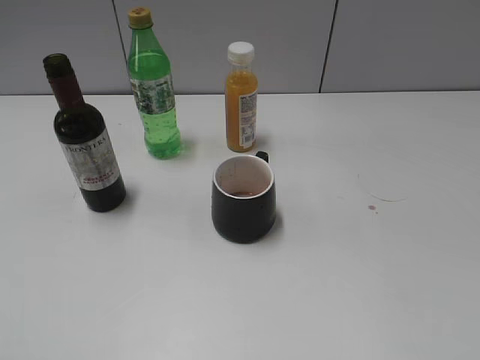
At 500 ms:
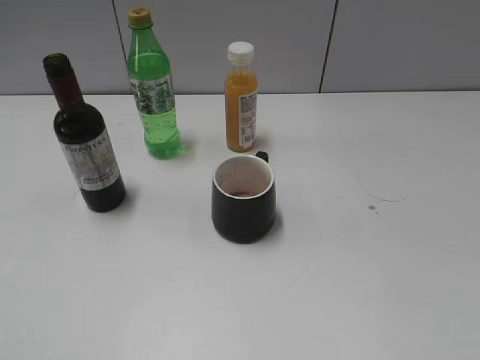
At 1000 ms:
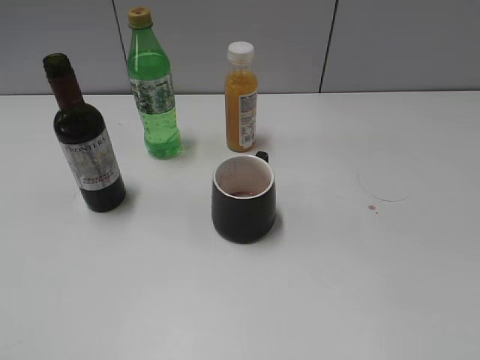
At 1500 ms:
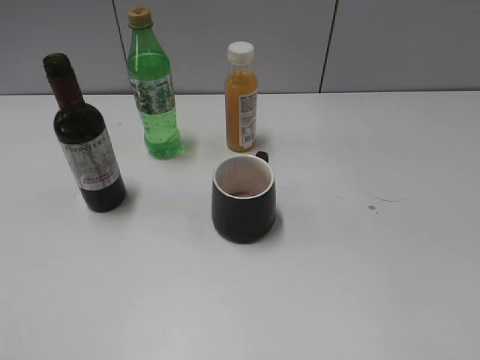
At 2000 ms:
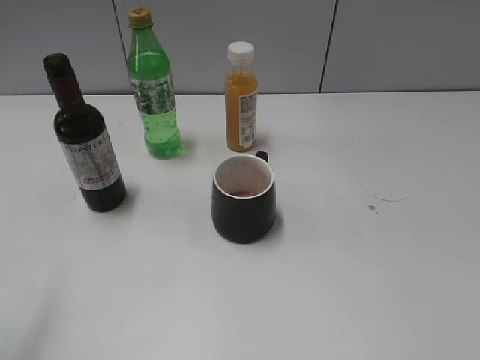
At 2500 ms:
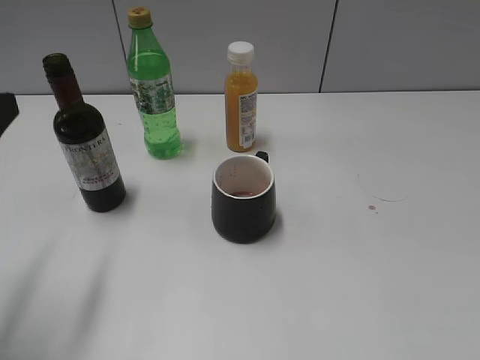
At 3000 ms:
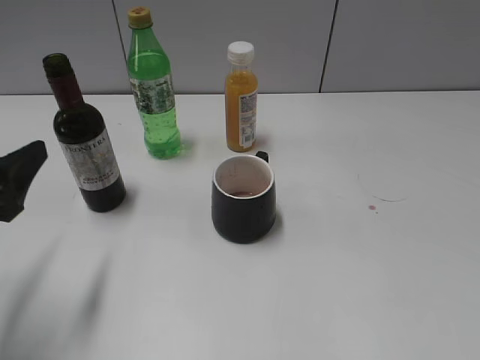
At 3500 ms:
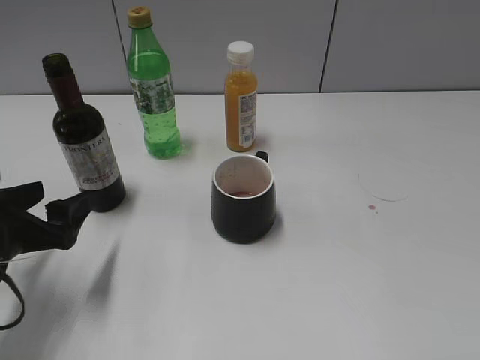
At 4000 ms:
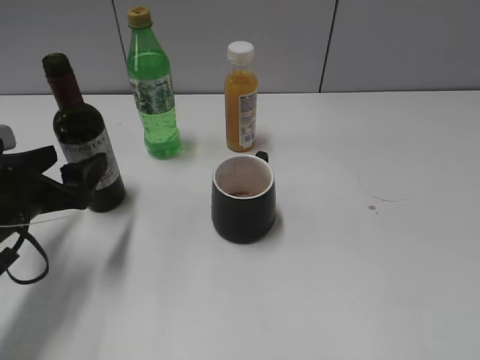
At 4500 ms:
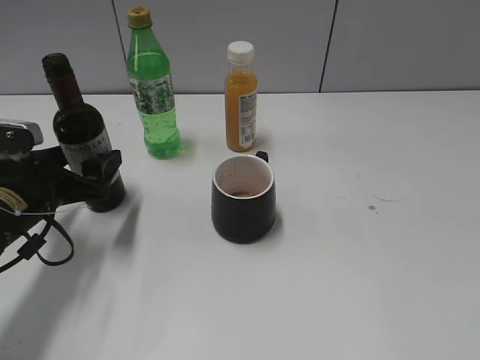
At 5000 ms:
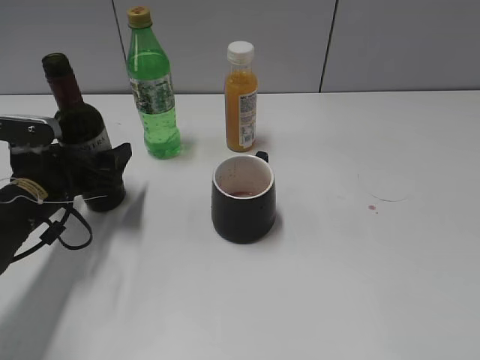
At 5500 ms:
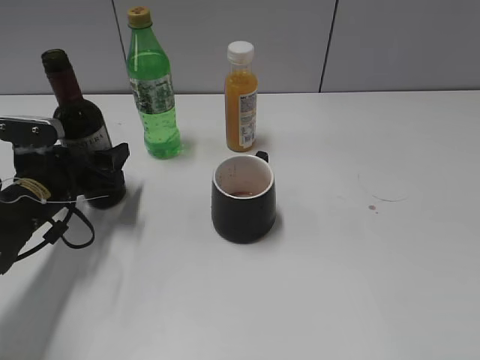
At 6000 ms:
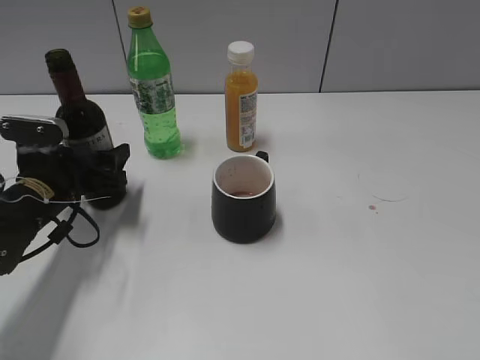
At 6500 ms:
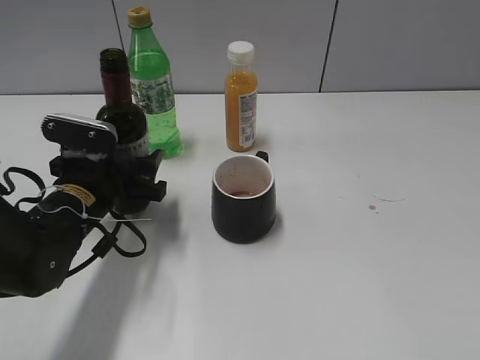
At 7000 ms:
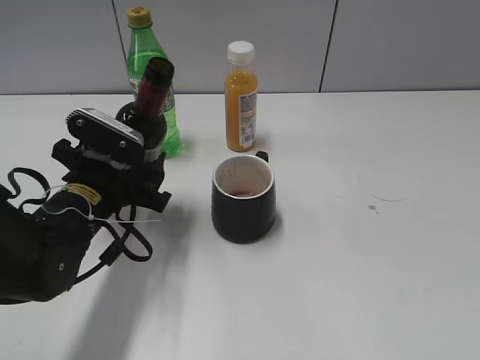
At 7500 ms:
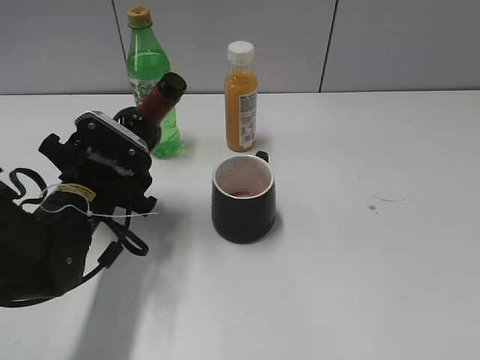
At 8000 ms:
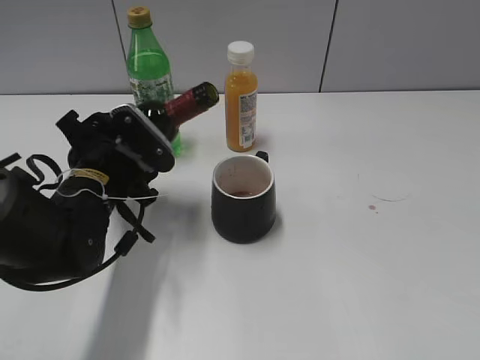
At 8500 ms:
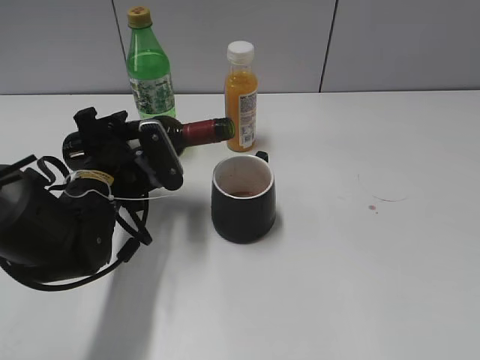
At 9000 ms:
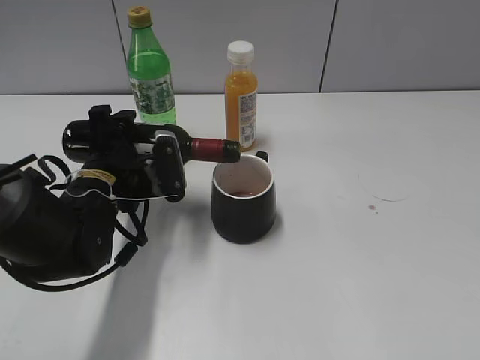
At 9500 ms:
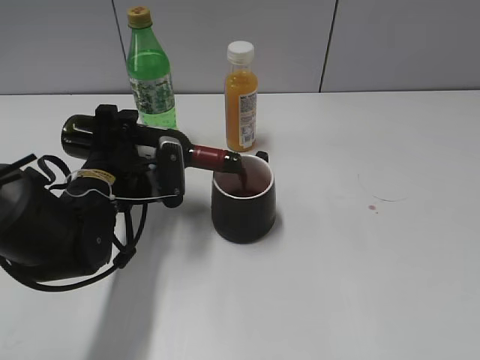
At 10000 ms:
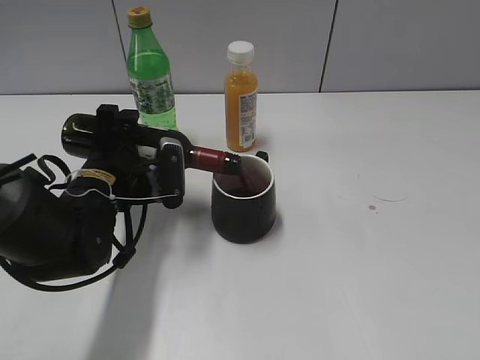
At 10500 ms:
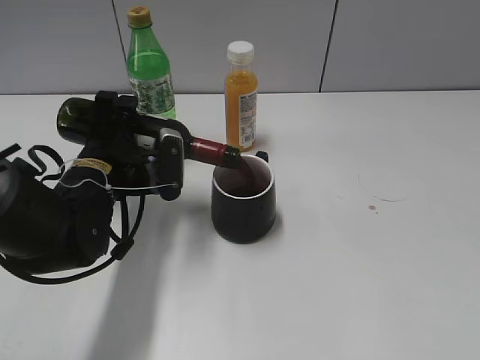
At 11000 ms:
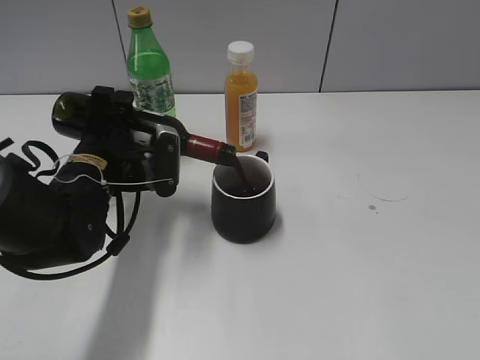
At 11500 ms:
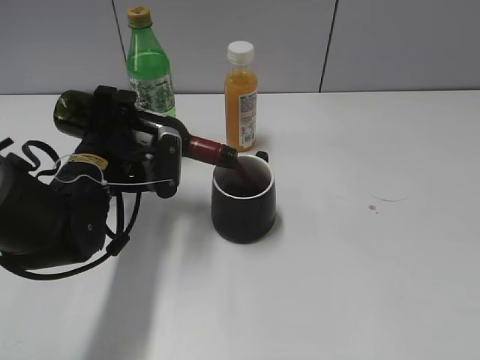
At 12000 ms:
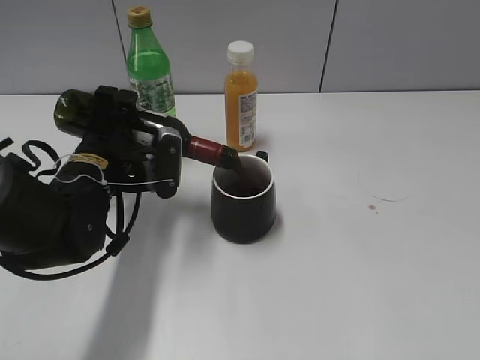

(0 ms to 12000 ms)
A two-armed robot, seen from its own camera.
Step, 0 ms - 5500 ms: Grasp the bottle with red wine with left gripper.
2000 ms - 4000 ms: The left gripper shifts approximately 25 cm downward and forward.
4000 ms - 6000 ms: The left gripper heads forward, covering approximately 5 cm, and closes.
6000 ms - 8000 ms: The left gripper moves to the right, some 10 cm.
10000 ms - 12000 ms: The grippers move only a little.

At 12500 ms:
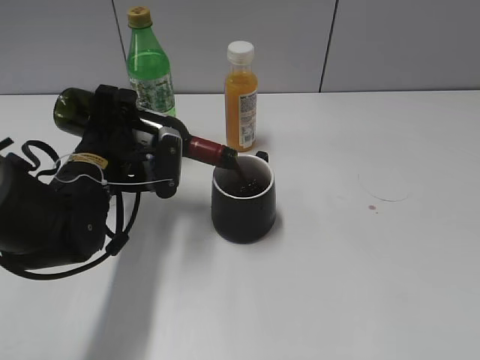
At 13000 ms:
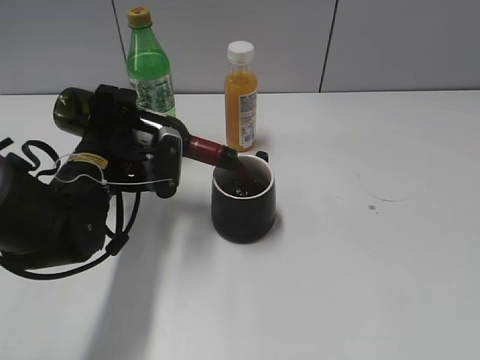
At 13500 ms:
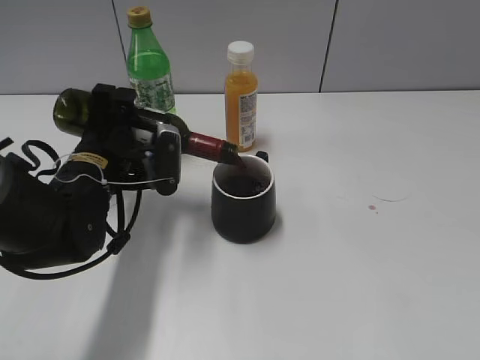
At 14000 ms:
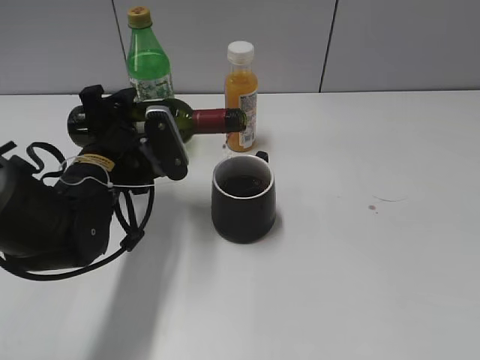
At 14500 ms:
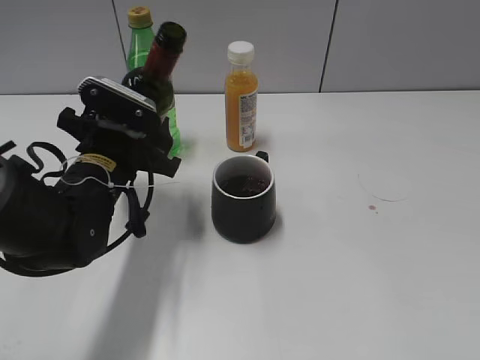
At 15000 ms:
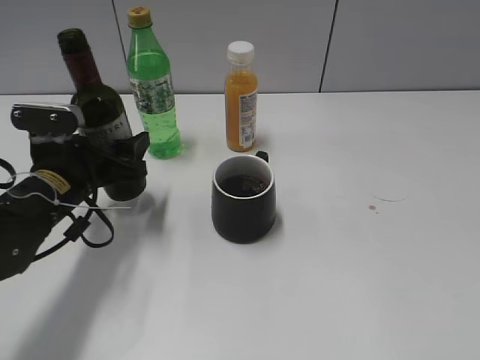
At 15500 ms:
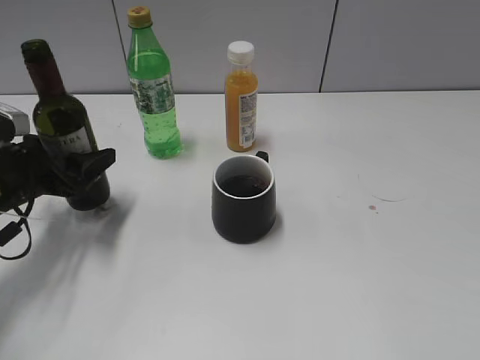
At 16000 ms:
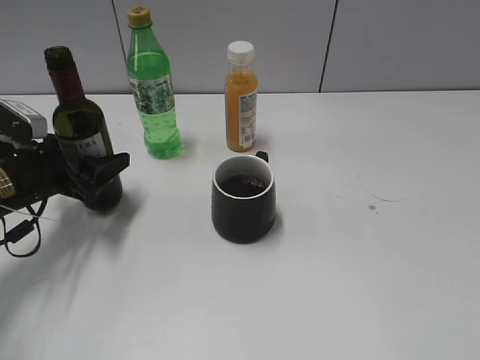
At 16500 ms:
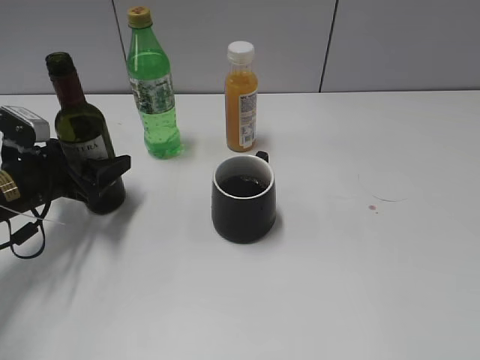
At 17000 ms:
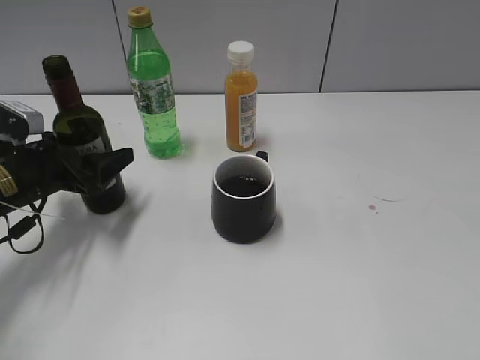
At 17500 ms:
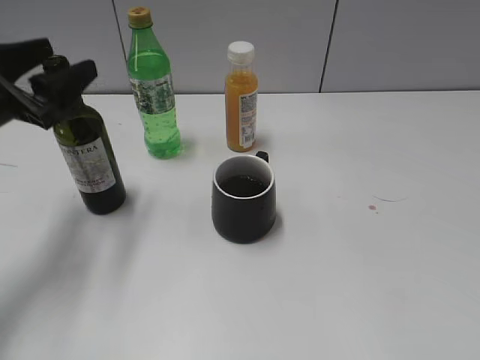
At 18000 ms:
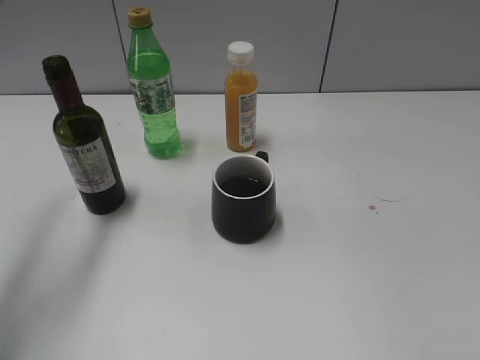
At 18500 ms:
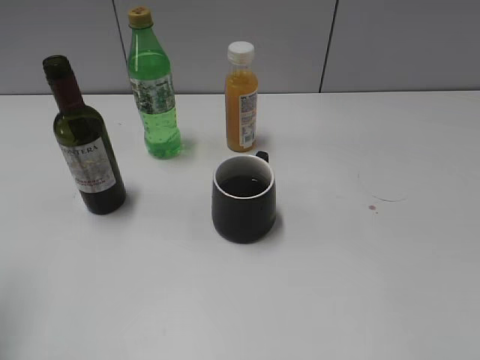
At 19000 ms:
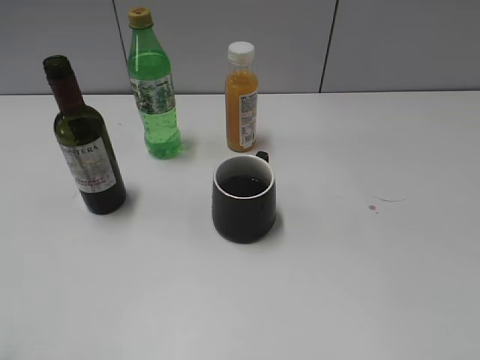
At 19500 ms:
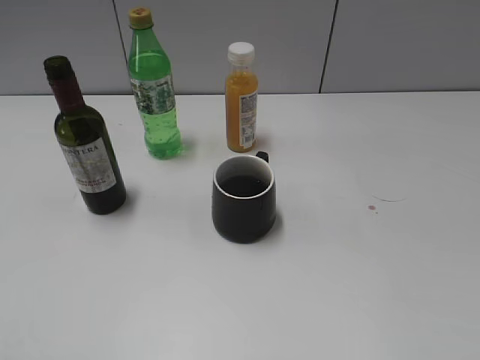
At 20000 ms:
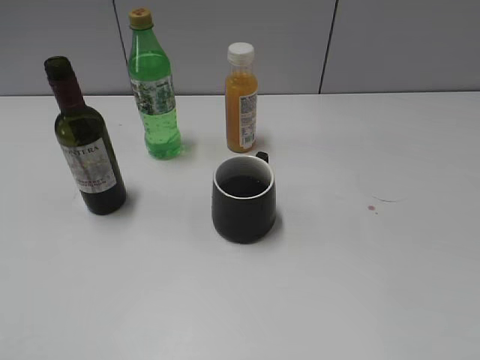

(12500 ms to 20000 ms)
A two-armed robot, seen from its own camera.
Step, 14500 ms - 17000 ms: Place the red wine bottle on the table with left gripper.
14500 ms - 16500 ms: The left gripper heads to the left, covering some 10 cm.
16500 ms - 18000 ms: The left gripper goes some 20 cm upward, and opens.
18000 ms - 20000 ms: The left gripper is displaced backward by approximately 25 cm, and closes up.
